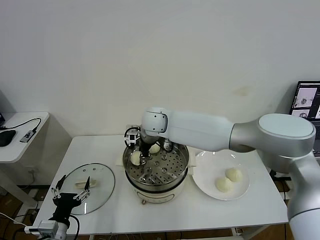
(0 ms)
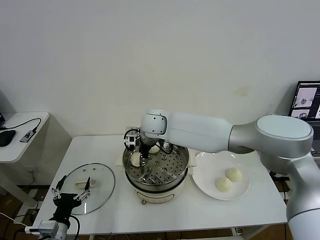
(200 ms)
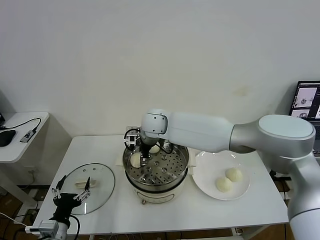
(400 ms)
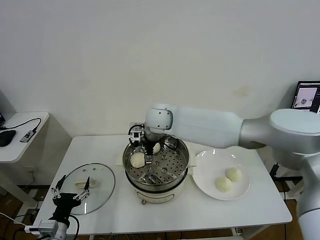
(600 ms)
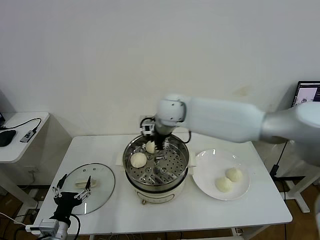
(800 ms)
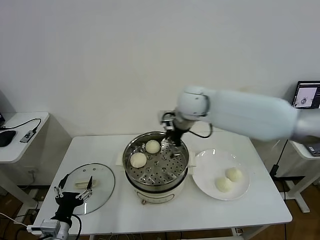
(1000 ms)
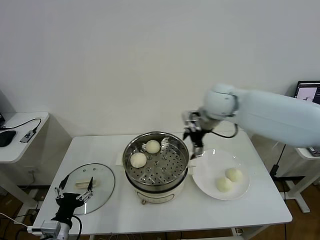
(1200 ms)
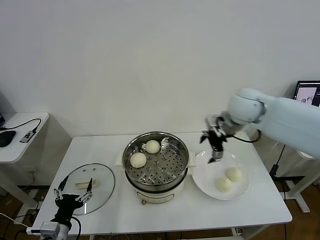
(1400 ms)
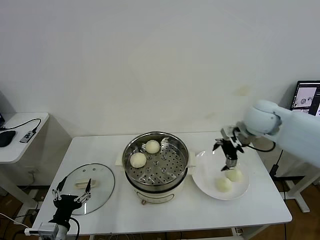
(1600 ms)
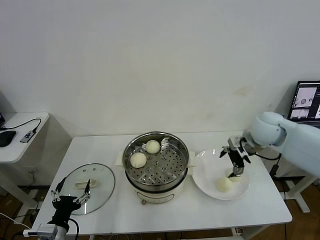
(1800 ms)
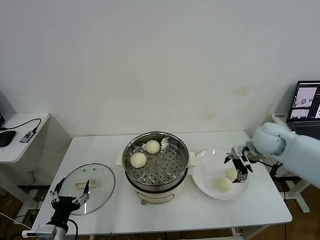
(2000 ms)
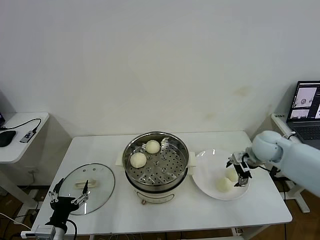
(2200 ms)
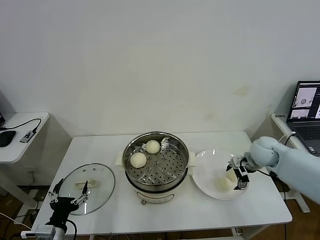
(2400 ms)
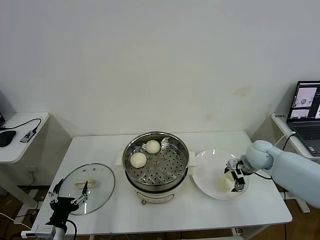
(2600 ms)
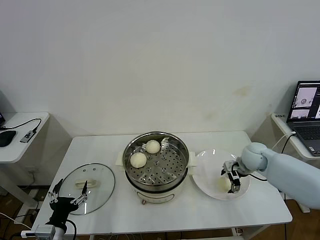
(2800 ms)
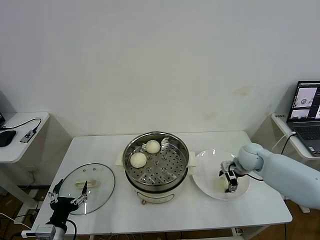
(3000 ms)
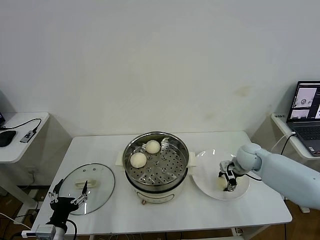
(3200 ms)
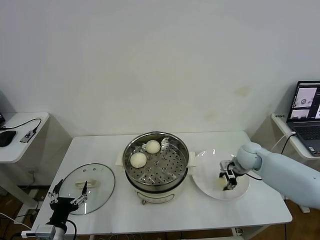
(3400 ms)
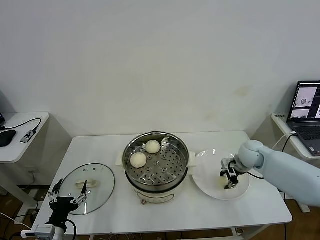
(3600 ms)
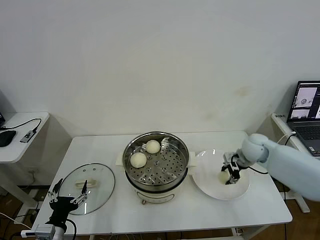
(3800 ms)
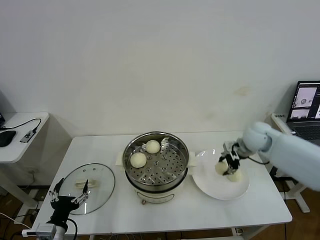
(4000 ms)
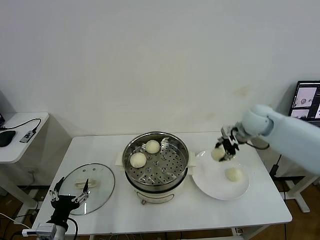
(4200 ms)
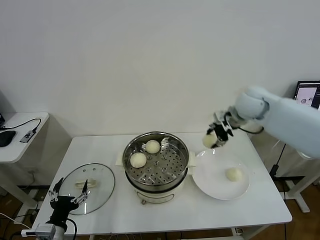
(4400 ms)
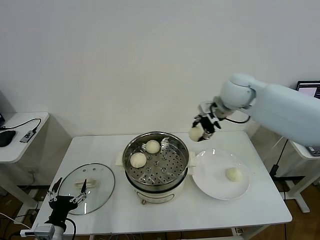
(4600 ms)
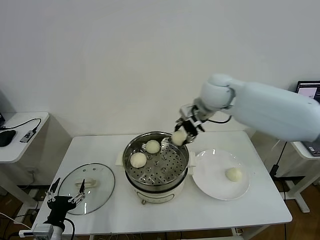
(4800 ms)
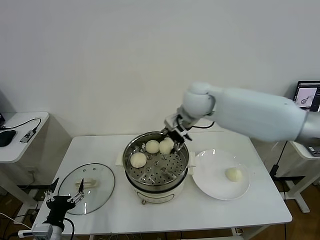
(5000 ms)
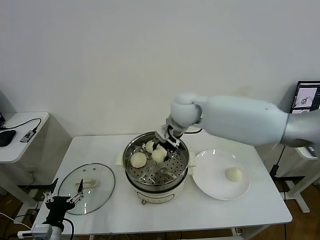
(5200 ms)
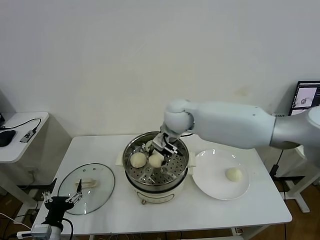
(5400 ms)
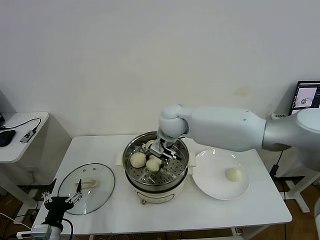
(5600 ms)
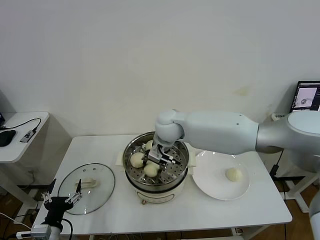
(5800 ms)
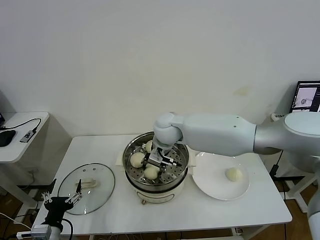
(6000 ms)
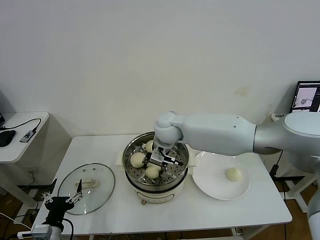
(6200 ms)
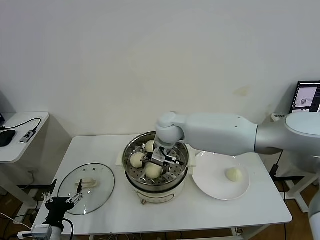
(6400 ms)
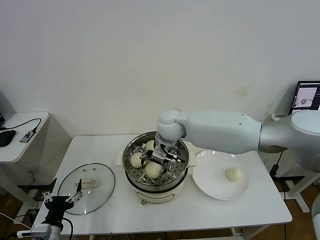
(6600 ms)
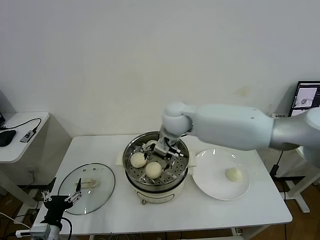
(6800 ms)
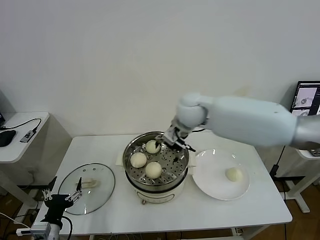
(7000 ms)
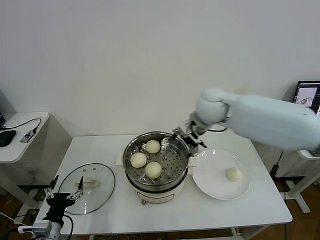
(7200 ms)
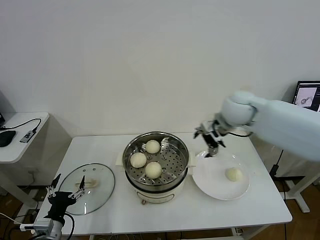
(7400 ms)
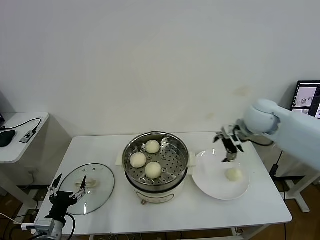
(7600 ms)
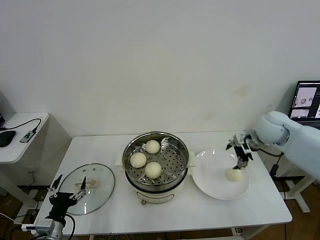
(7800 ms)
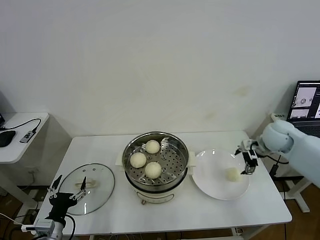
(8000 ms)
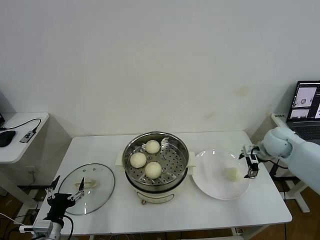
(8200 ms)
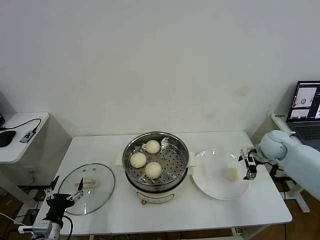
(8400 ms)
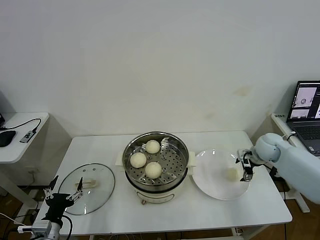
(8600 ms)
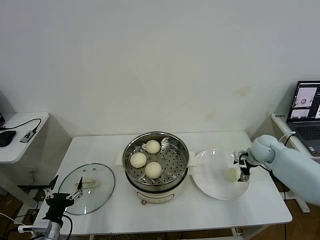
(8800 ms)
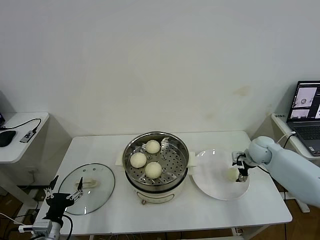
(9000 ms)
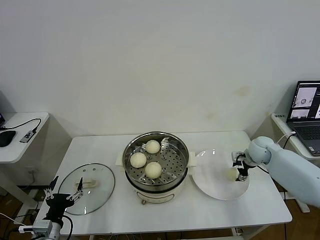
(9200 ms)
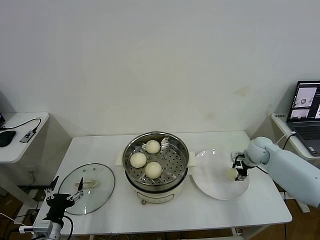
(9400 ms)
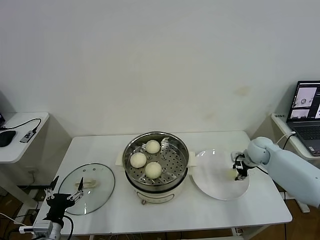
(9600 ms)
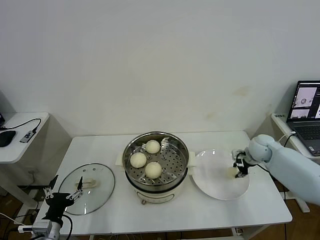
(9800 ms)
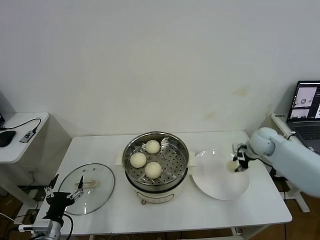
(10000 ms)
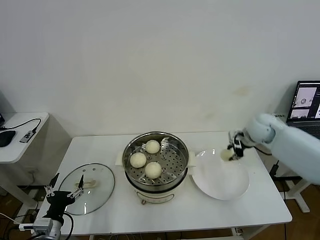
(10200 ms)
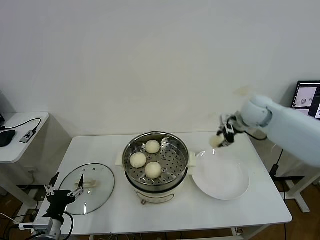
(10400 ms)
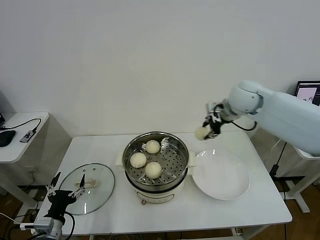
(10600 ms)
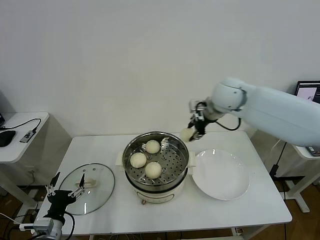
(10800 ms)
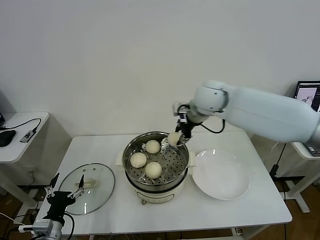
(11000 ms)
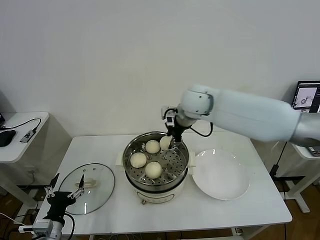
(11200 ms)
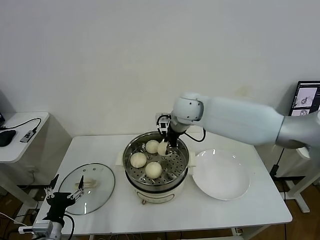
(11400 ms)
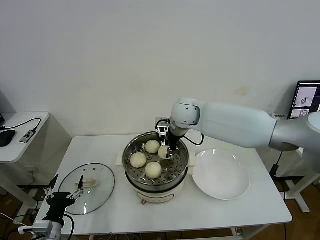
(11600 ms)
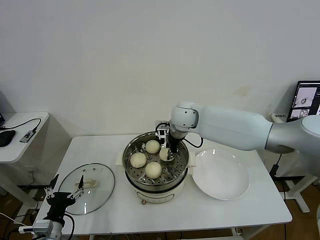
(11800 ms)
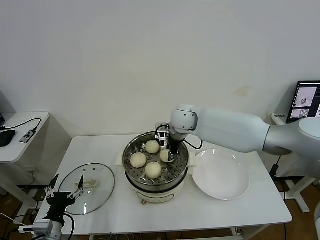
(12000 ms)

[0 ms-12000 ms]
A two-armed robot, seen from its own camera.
Task of the whole recording: take steamed baozi put them in steamer then cover it.
Step, 800 ms to 3600 ms: Grasp the baozi in the plate with right gripper.
Step, 3800 ms to 6600 ms: Place the baozi on the steamer with right gripper.
Step, 7000 ms to 9800 ms: Grasp the baozi in the plate with right gripper.
0 ms to 1600 ms: The right gripper heads to the right, covering roughly 35 cm, and opens its fingers.
1600 ms to 3000 ms: The right gripper shifts roughly 20 cm downward.
3000 ms to 4400 ms: The right gripper shifts approximately 25 cm upward, and closes up.
4400 ms to 6000 ms: The right gripper is displaced to the left by roughly 25 cm.
6000 ms to 7600 ms: The right gripper moves to the right, approximately 30 cm, and opens up.
7600 ms to 9000 ms: The right gripper heads downward and to the right, covering approximately 20 cm.
9000 ms to 10400 ms: The right gripper shifts roughly 20 cm upward and to the left, and closes its fingers.
10400 ms to 12000 ms: The right gripper is displaced to the left by some 20 cm.

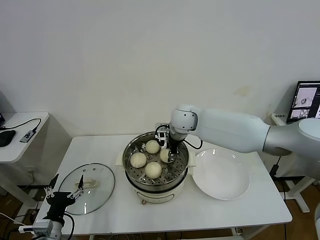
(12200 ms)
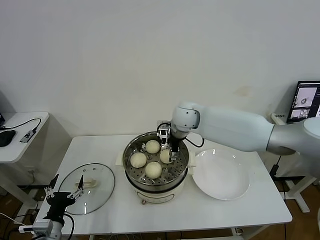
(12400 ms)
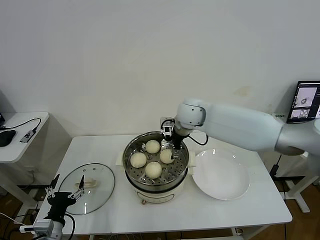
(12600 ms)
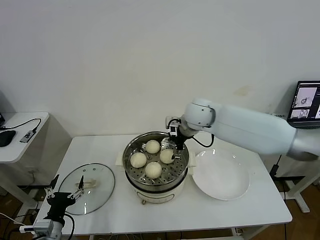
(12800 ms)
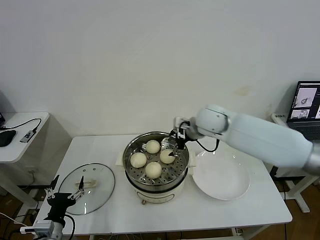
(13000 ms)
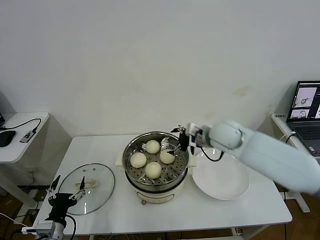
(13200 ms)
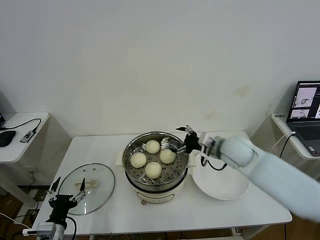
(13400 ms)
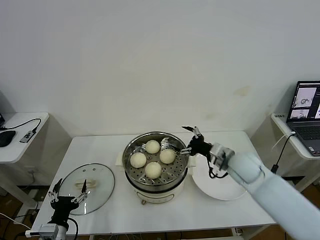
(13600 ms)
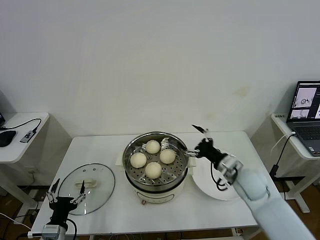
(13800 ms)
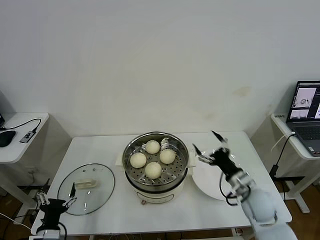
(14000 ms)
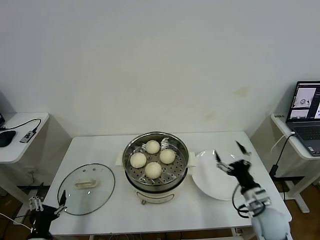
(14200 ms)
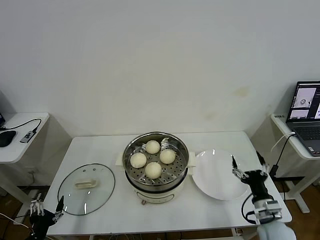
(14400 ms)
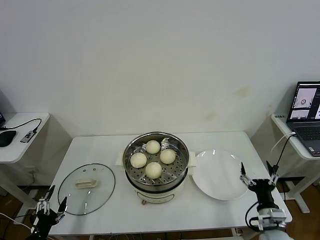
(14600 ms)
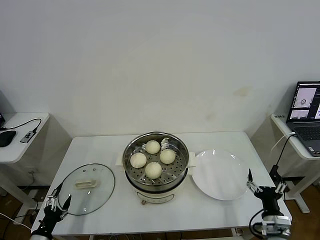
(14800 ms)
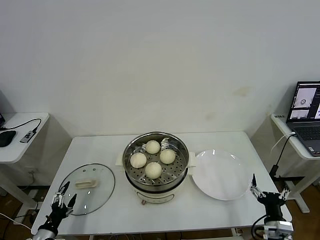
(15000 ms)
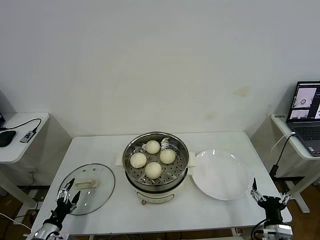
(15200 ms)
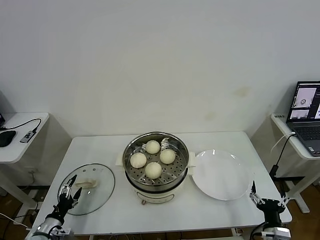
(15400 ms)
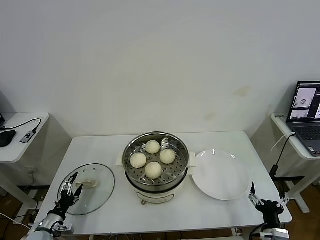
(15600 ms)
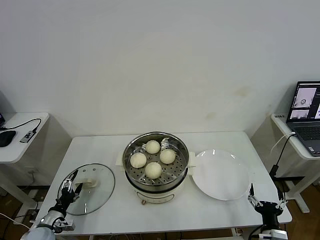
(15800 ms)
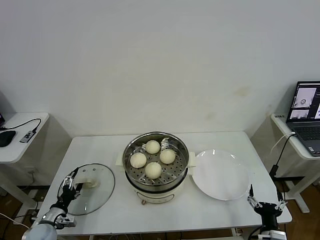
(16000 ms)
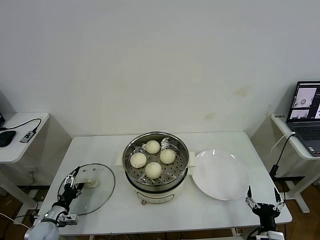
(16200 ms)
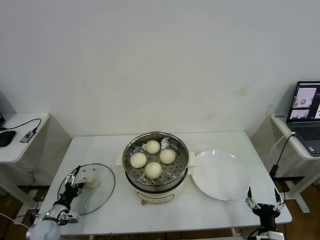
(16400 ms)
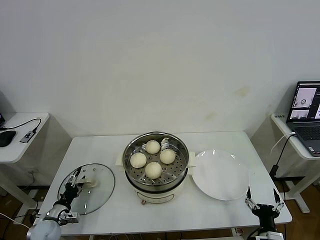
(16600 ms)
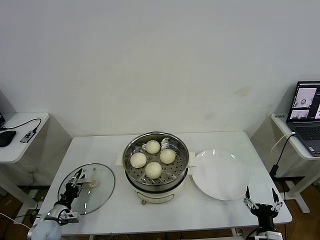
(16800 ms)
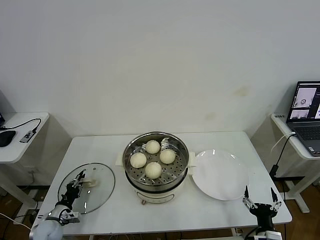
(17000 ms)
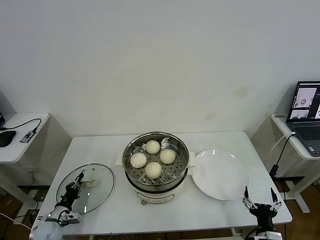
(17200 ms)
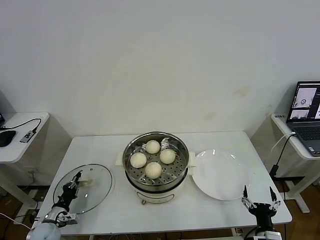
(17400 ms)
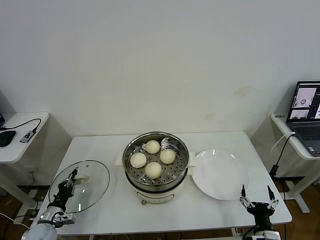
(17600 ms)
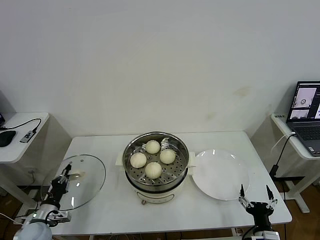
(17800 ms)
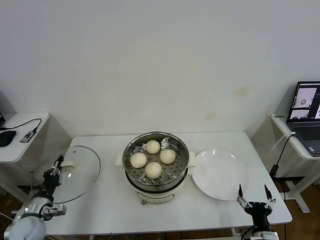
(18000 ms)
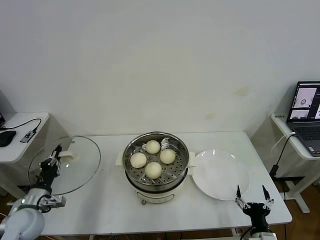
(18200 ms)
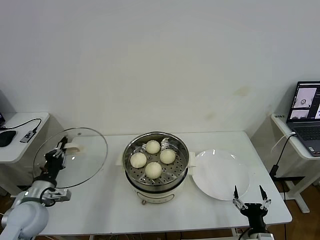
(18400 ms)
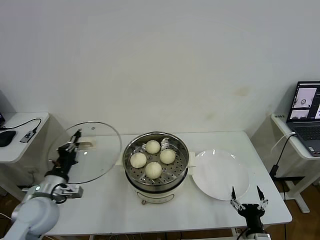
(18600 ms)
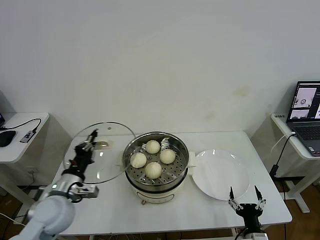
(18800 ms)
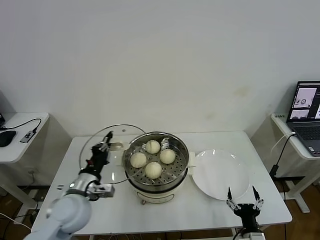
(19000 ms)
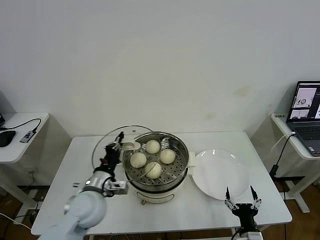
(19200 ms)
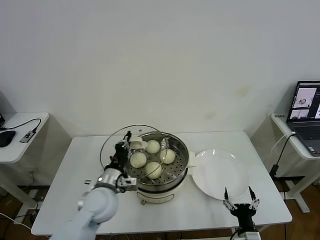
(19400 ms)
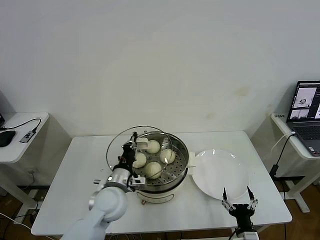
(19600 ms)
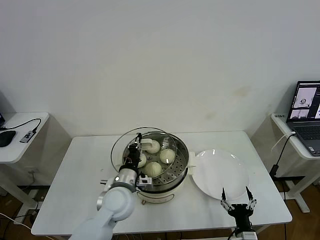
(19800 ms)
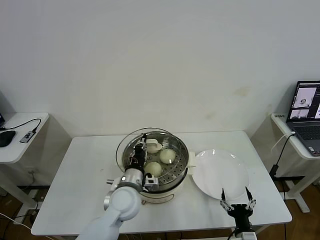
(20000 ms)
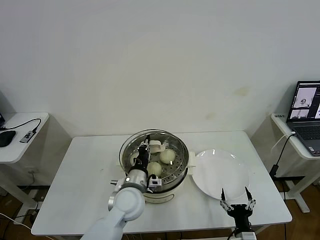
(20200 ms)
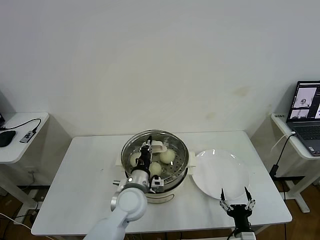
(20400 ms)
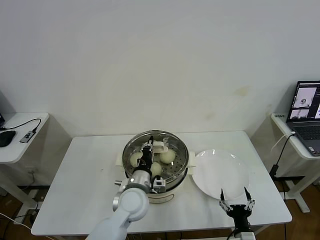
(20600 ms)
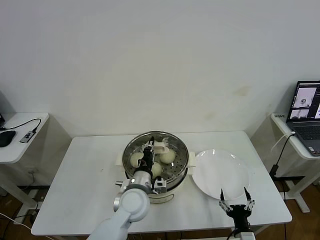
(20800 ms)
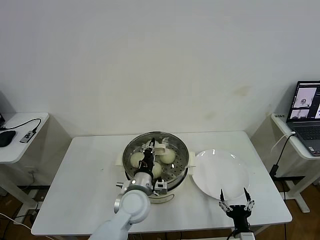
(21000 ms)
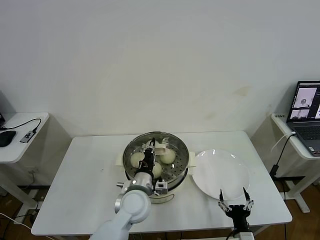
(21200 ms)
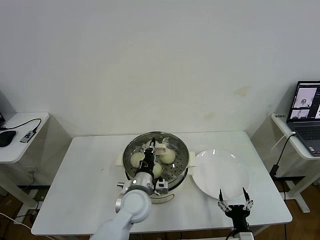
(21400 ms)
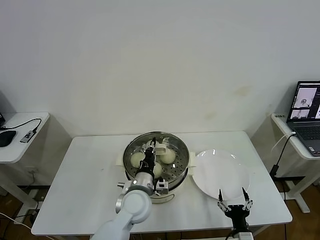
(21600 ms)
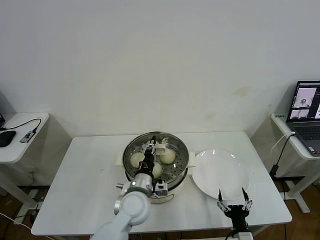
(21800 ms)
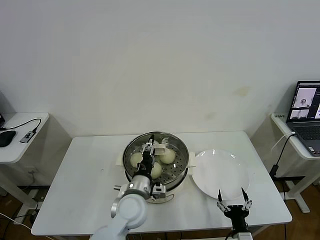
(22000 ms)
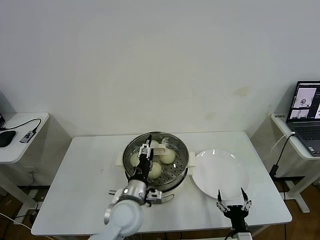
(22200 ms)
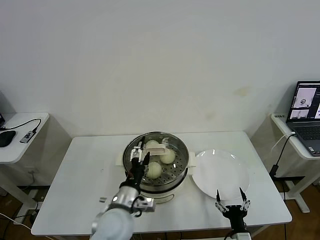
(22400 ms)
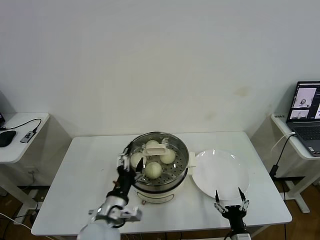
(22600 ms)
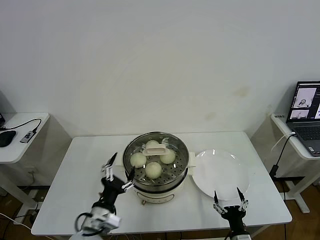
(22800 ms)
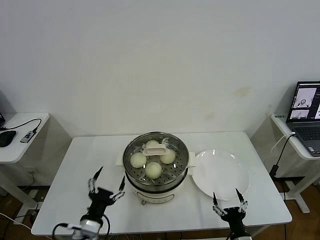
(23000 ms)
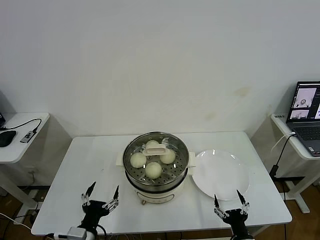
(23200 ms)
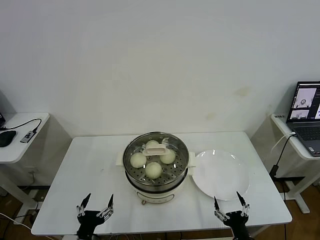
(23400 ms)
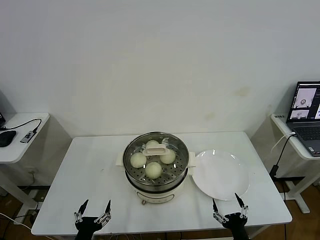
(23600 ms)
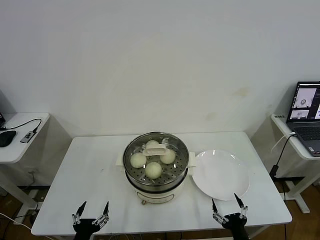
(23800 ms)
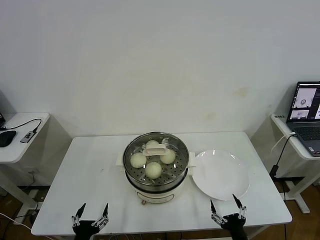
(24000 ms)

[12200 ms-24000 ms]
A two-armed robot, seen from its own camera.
Task of the whole recording: take steamed baozi put them in steamer then cover it.
Step, 12800 ms to 17400 ms: Grasp the pot lid with left gripper.
Step, 17600 ms to 22400 ms: Place the pot lid on the steamer with left gripper.
12200 ms to 13600 ms: The right gripper heads to the right, backward and downward, covering about 25 cm, and opens its fingers.
13600 ms to 15200 ms: The right gripper moves backward, downward and to the right, approximately 30 cm; the left gripper shifts approximately 15 cm to the left and downward.
15200 ms to 16600 ms: The left gripper is displaced forward by about 10 cm.
16600 ms to 18200 ms: The left gripper travels upward by approximately 15 cm, and closes up.
18200 ms to 19600 ms: The left gripper shifts some 25 cm to the right.
19600 ms to 21000 ms: The left gripper moves to the right, about 5 cm.
21000 ms to 22600 ms: The left gripper travels backward and to the left by approximately 10 cm, and opens up.
22600 ms to 24000 ms: The left gripper travels to the left, backward and downward by approximately 20 cm.
